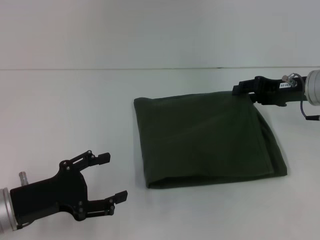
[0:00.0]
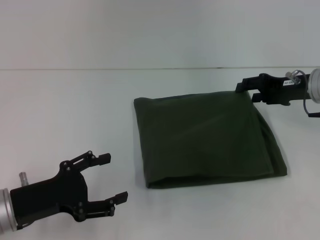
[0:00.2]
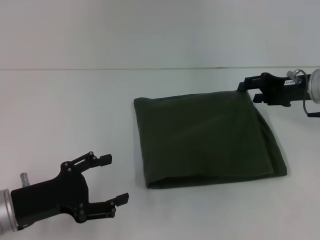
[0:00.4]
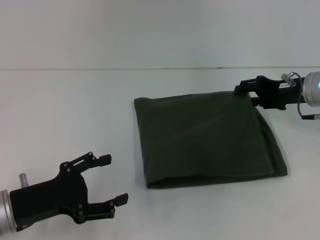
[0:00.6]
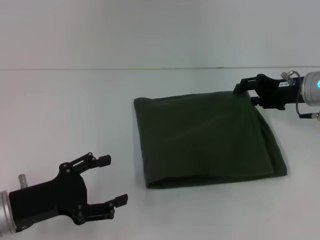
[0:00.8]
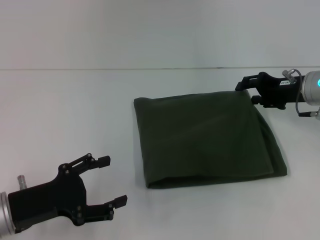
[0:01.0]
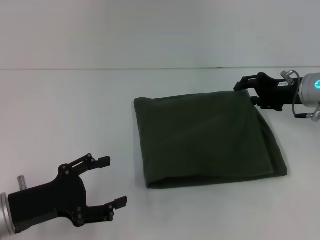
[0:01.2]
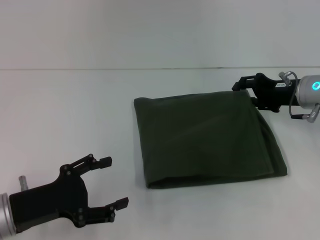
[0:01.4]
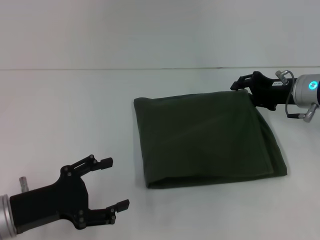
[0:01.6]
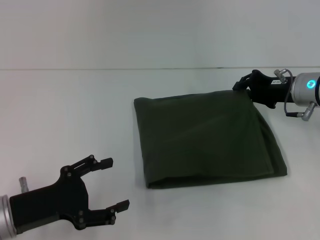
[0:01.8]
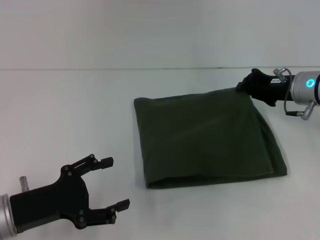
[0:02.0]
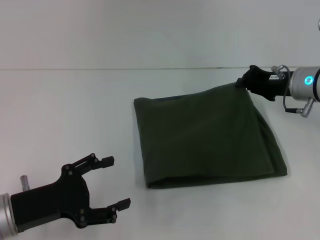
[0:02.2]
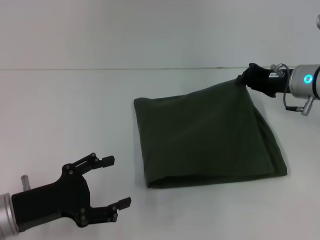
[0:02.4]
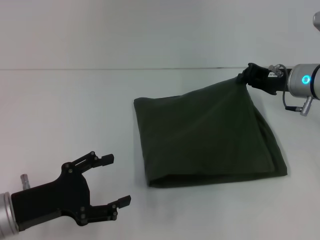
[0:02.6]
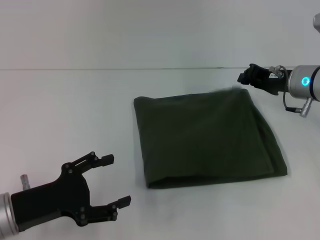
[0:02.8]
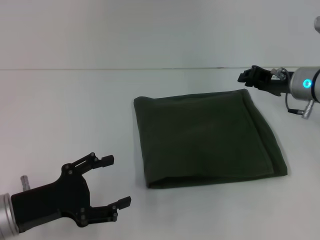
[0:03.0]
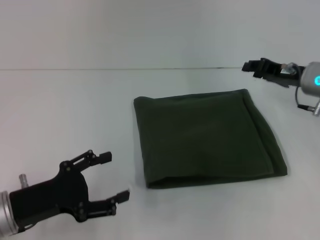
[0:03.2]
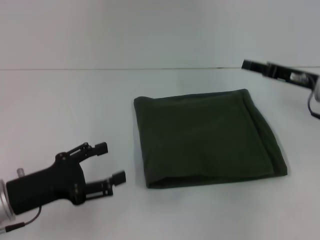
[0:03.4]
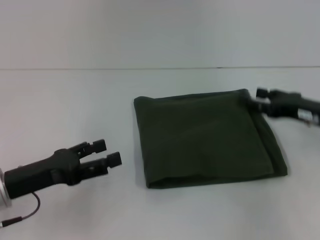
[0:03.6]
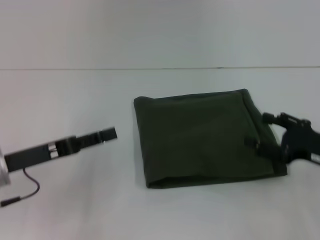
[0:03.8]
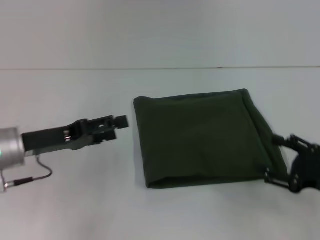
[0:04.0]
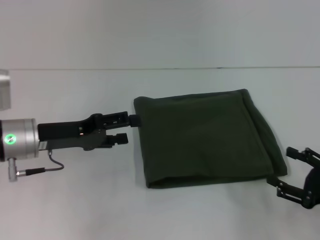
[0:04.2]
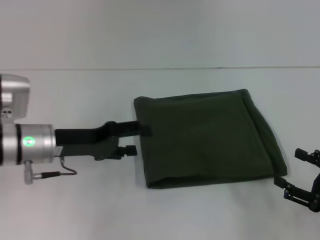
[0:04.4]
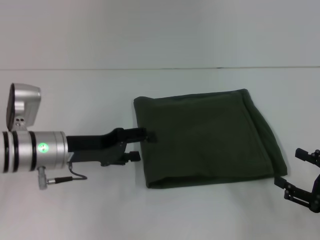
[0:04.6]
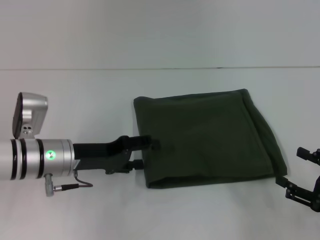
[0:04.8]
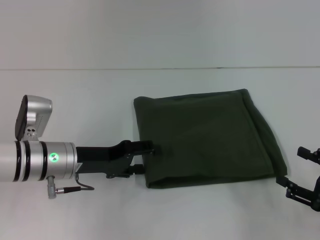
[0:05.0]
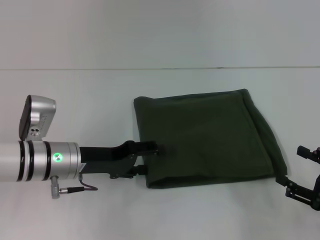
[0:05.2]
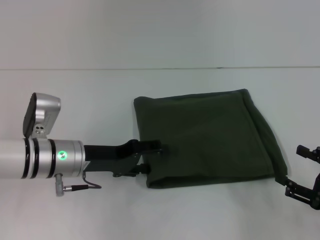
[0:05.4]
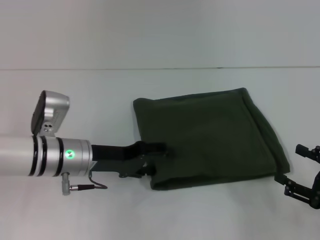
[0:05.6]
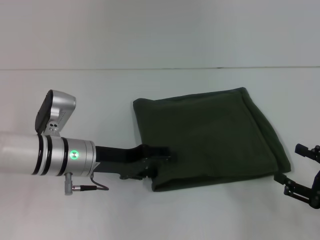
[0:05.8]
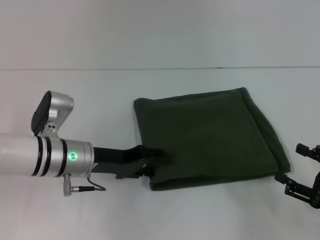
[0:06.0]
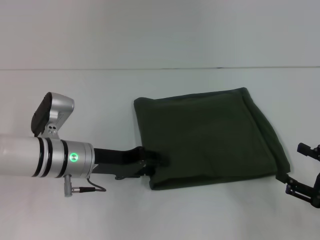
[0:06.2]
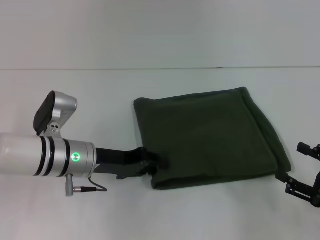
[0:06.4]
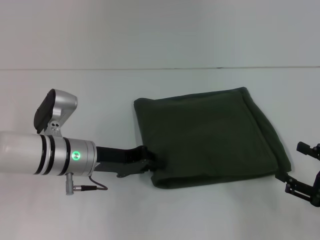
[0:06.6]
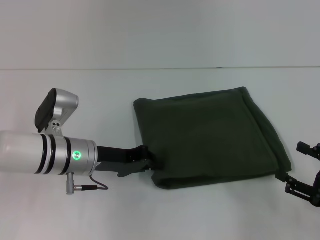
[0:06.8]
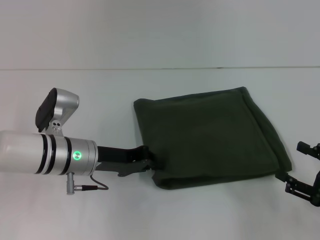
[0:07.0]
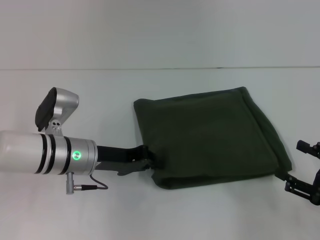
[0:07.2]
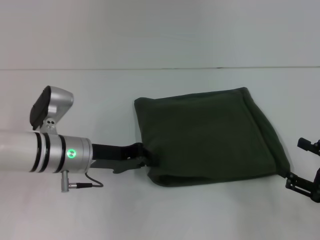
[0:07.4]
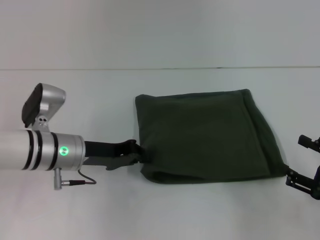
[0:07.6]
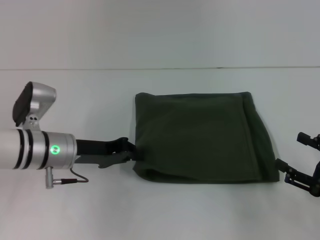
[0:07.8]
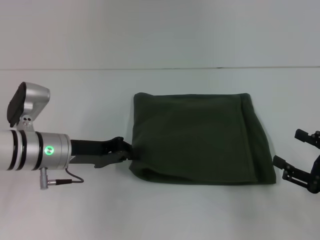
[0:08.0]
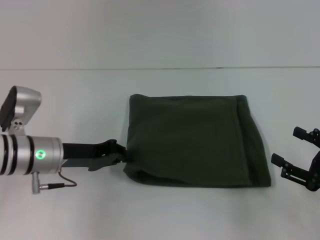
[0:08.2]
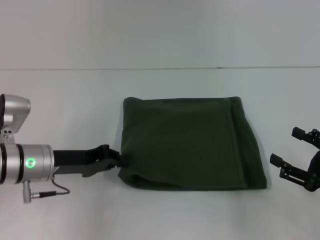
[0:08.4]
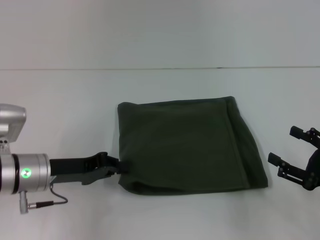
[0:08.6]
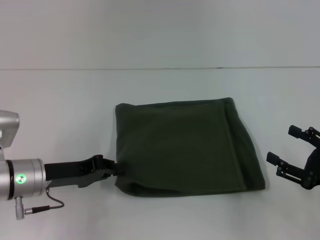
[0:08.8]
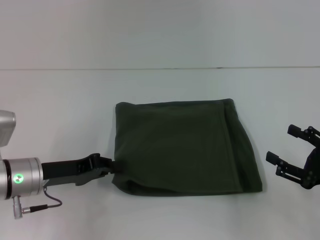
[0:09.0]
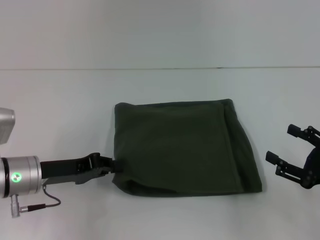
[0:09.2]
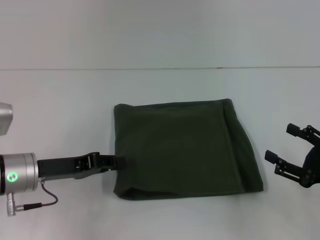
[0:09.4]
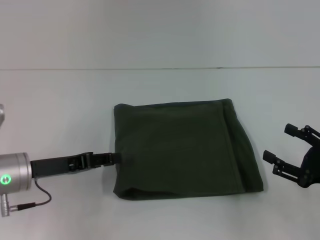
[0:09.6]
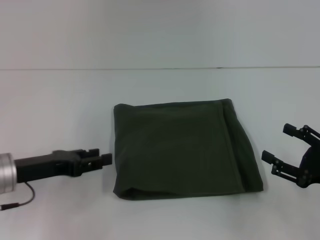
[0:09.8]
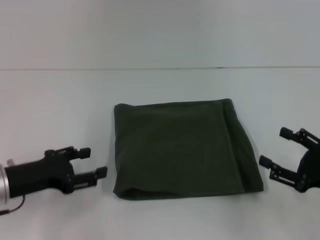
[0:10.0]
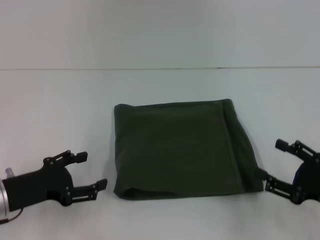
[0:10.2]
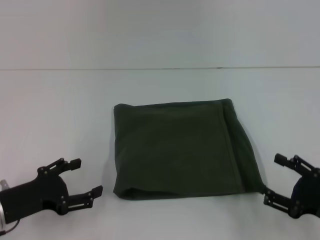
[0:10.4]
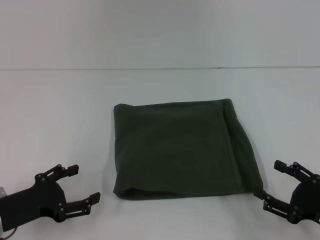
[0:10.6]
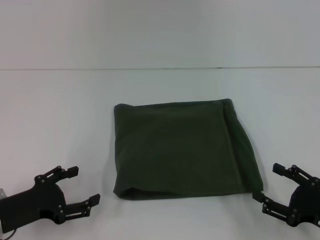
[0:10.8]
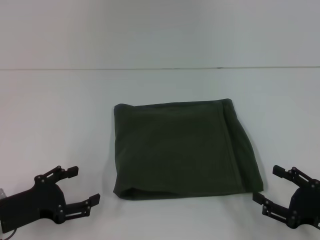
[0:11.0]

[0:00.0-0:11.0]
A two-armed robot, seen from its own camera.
0:01.6 to 0:03.2: The right gripper closes up.
0:03.2 to 0:04.8: The left gripper travels forward and to the right by approximately 10 cm. The right gripper is displaced backward by roughly 20 cm, and opens up.
0:04.8 to 0:06.2: The grippers move only a little.
0:06.2 to 0:07.8: The left gripper closes up.
0:07.8 to 0:09.4: The left gripper moves about 5 cm.
0:09.4 to 0:11.0: The left gripper moves backward, about 10 cm, and opens up, while the right gripper changes place by approximately 5 cm.

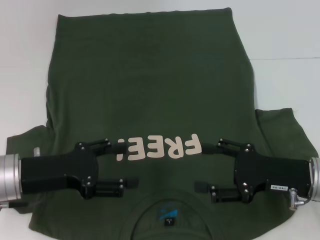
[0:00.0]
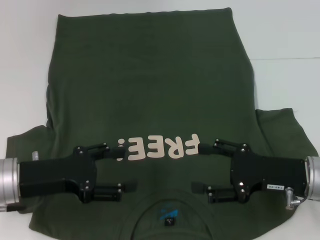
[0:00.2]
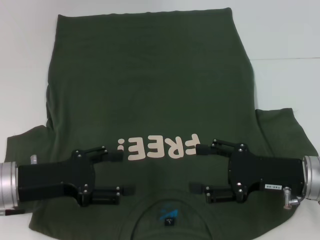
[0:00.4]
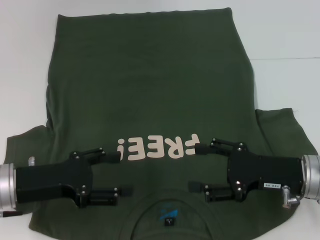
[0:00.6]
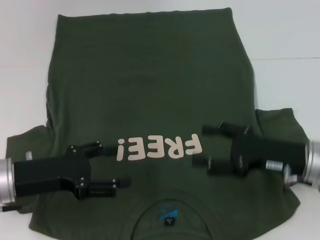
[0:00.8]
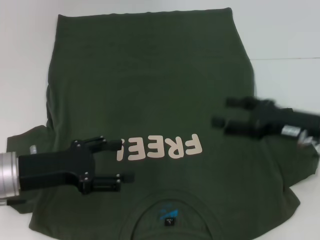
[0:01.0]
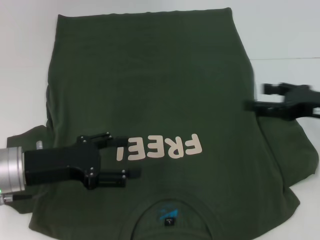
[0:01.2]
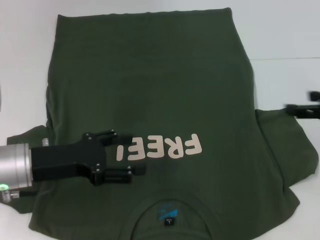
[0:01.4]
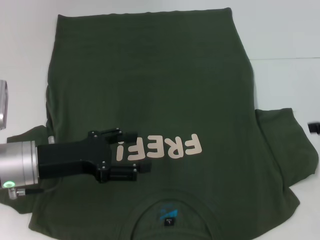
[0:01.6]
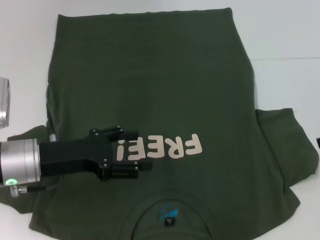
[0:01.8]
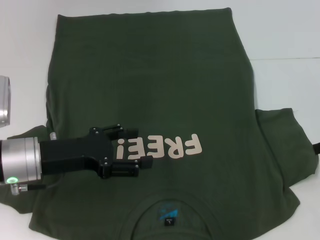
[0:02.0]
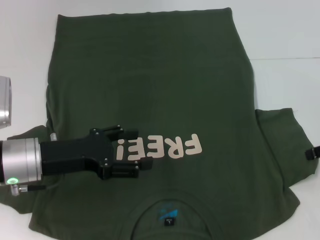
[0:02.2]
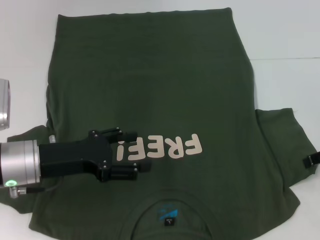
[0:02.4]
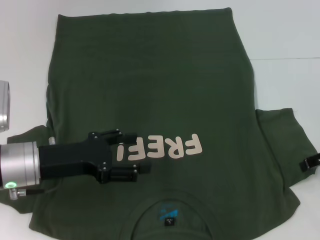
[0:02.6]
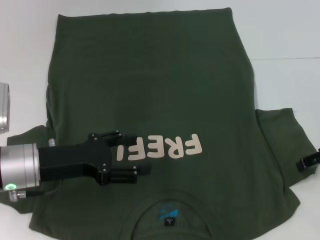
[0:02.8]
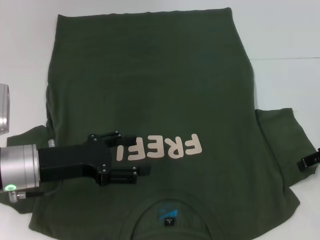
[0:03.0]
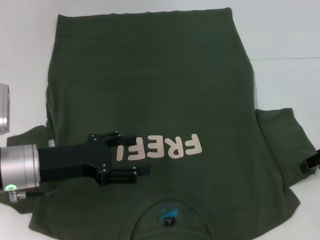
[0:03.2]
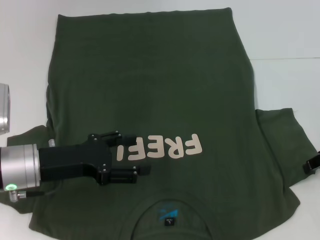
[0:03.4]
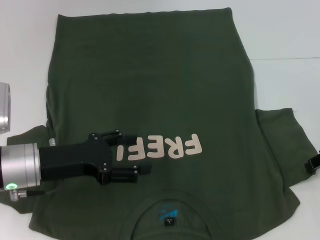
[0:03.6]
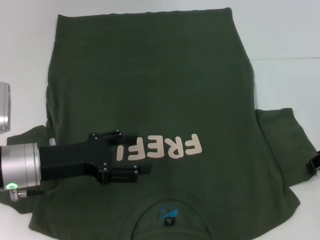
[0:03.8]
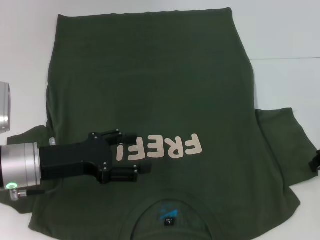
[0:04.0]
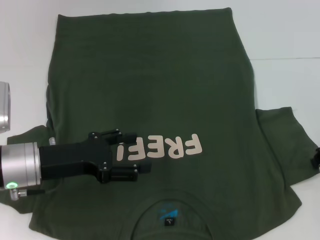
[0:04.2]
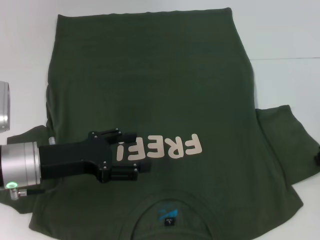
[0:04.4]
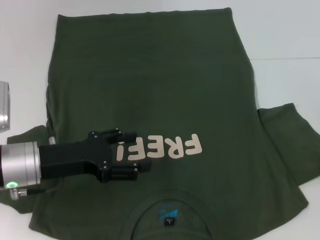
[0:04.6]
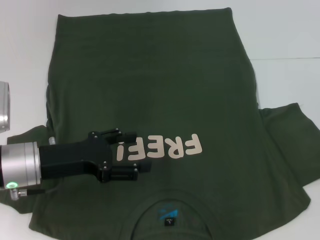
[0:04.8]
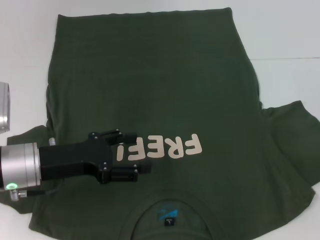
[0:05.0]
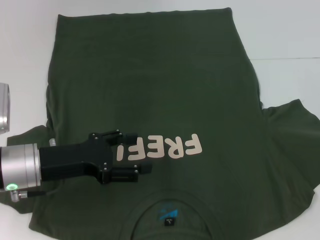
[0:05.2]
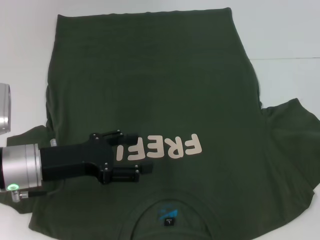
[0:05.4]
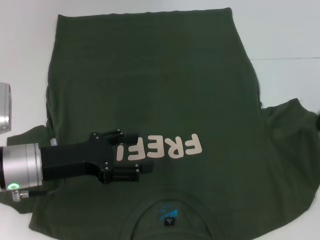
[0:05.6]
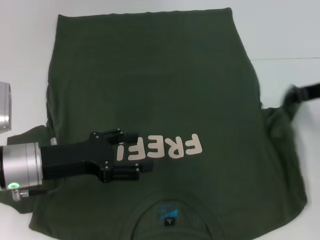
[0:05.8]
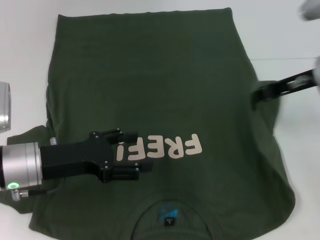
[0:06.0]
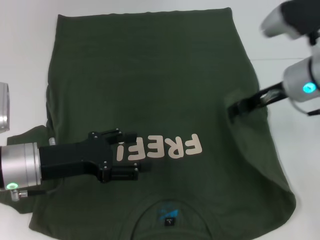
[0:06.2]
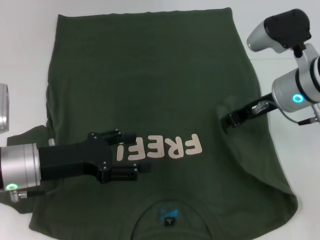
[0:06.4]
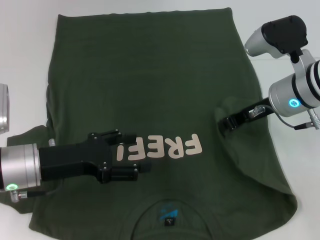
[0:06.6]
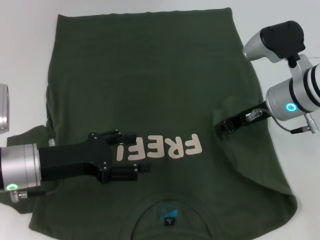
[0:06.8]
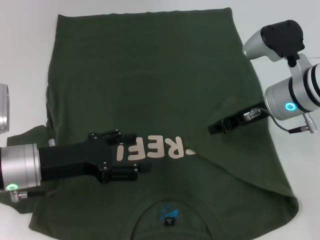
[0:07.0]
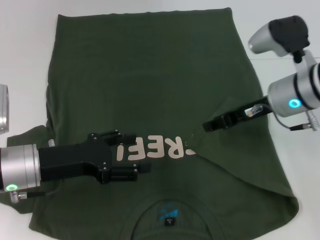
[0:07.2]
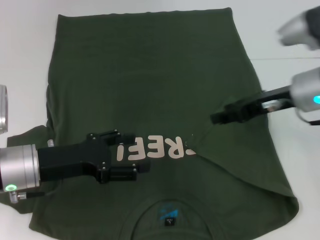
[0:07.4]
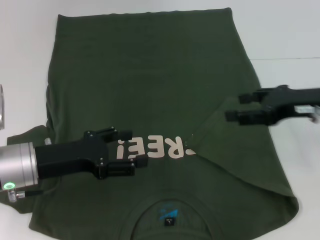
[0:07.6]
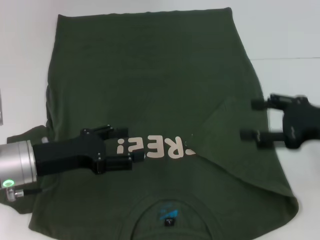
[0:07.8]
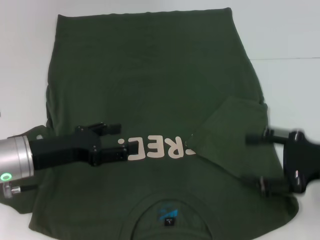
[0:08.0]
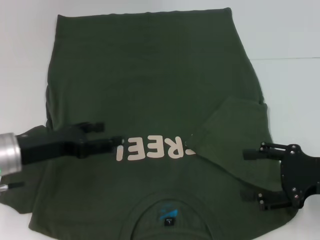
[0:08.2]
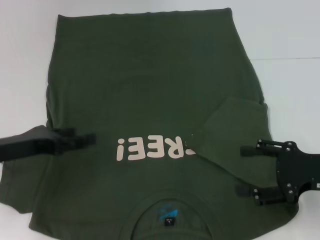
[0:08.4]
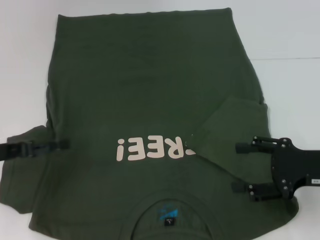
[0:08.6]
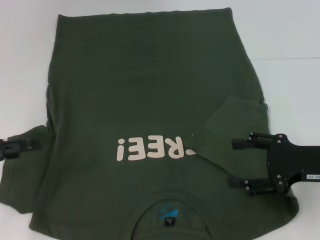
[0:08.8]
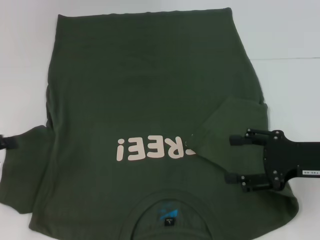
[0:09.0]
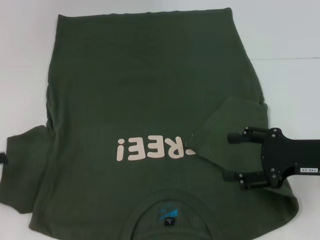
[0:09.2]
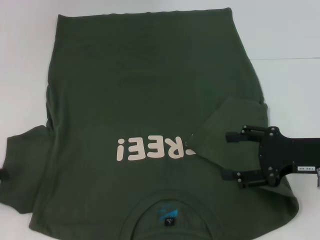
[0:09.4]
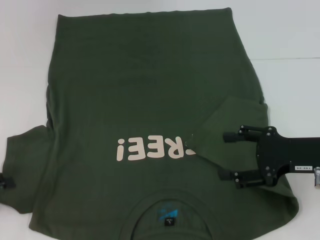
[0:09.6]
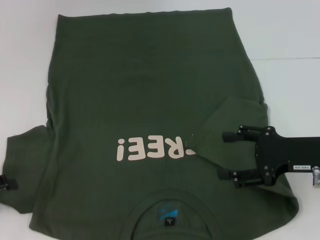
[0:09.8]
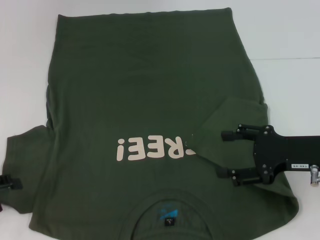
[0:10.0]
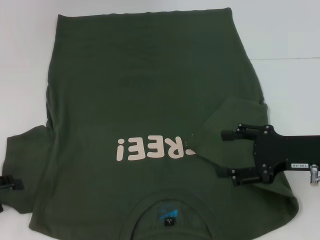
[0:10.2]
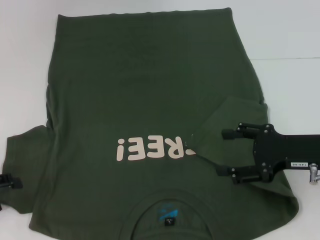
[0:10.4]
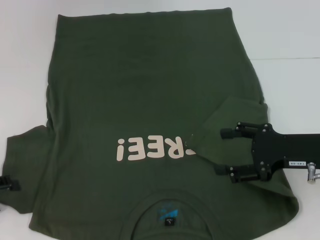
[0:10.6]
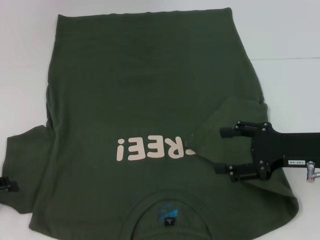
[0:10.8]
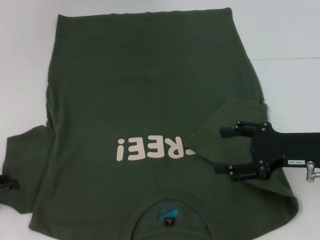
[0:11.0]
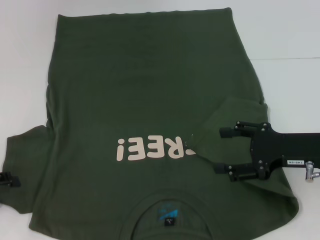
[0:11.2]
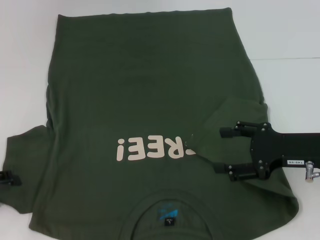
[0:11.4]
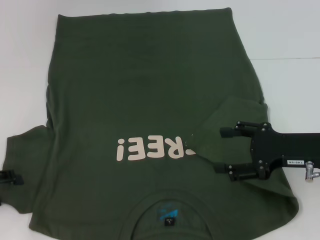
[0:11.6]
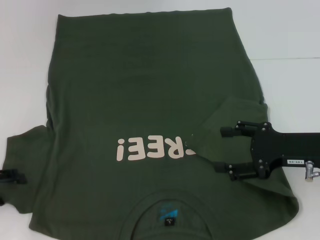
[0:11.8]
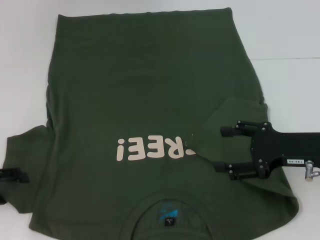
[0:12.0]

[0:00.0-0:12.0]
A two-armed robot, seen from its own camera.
Step, 0:00.0 to 0:06.8: Fold the bottom right sleeve with your right hand.
0:00.0 to 0:01.6: The right gripper is displaced to the right and upward by approximately 15 cm.
0:01.6 to 0:03.0: The right gripper changes place by roughly 5 cm.
0:03.0 to 0:04.4: The right gripper closes its fingers.
0:04.4 to 0:06.0: The right gripper shifts roughly 10 cm to the left and upward.
0:06.0 to 0:07.6: The right gripper is displaced backward by roughly 5 cm, goes to the left and returns, roughly 5 cm each way, and opens up.
0:07.6 to 0:09.0: The left gripper heads to the left, covering roughly 15 cm. The right gripper travels backward and downward by roughly 10 cm, and opens.
0:09.0 to 0:12.0: The grippers make only small movements.
